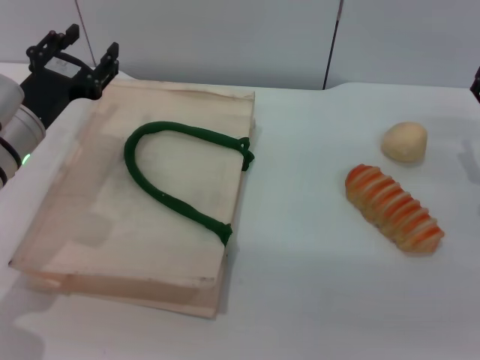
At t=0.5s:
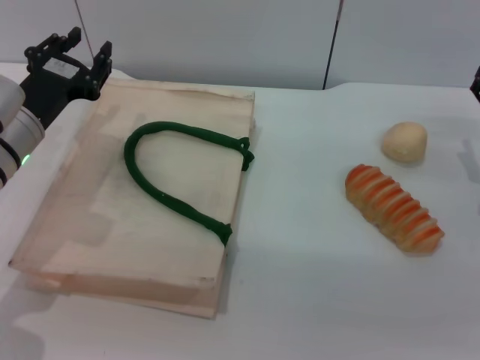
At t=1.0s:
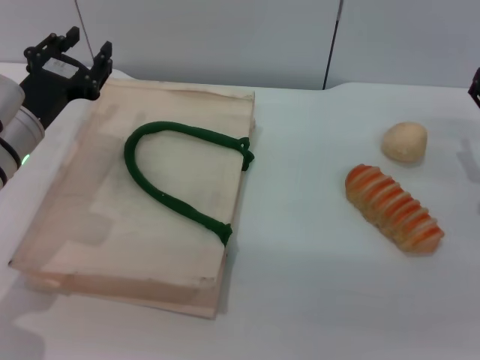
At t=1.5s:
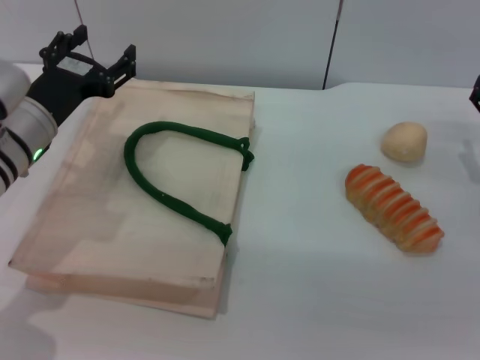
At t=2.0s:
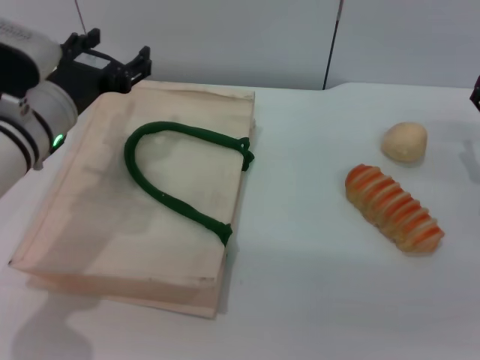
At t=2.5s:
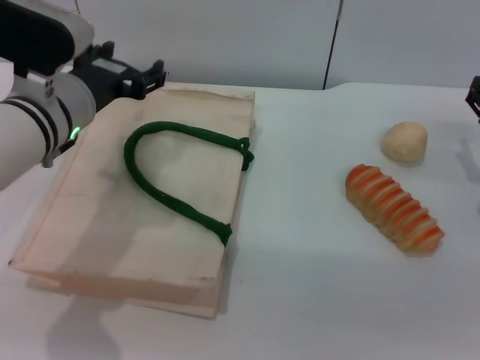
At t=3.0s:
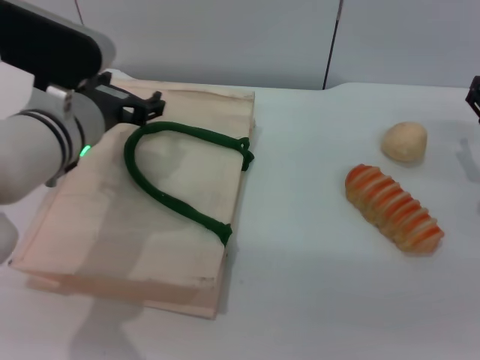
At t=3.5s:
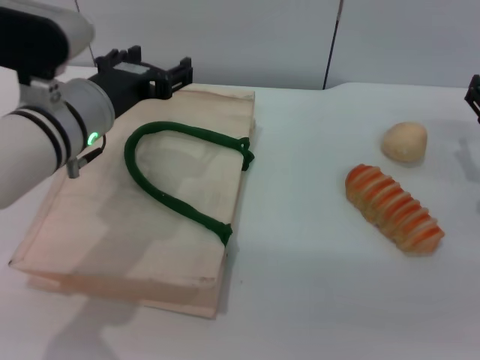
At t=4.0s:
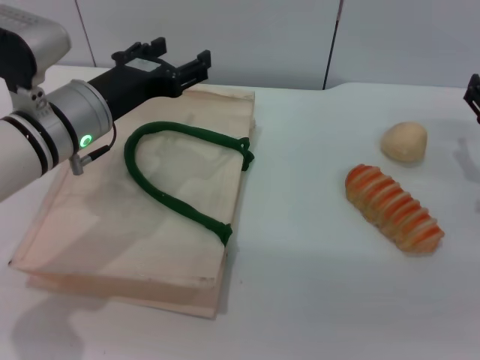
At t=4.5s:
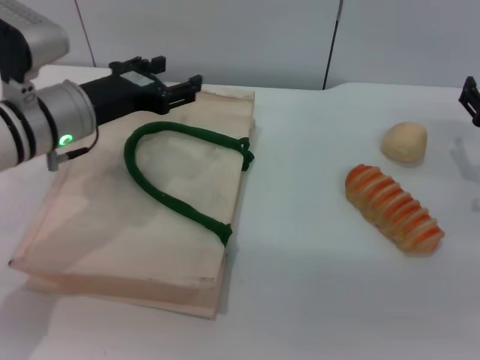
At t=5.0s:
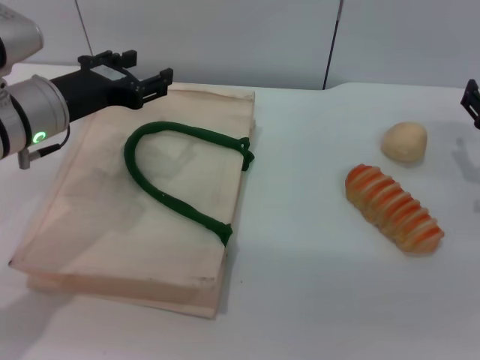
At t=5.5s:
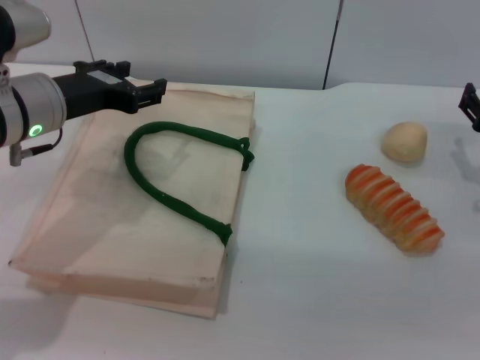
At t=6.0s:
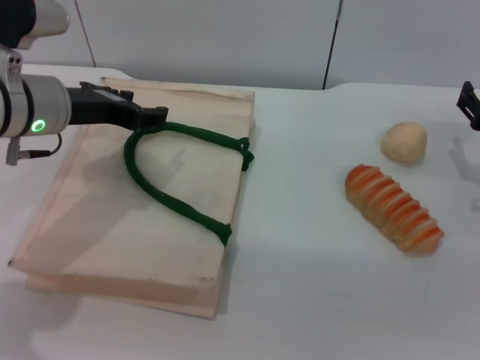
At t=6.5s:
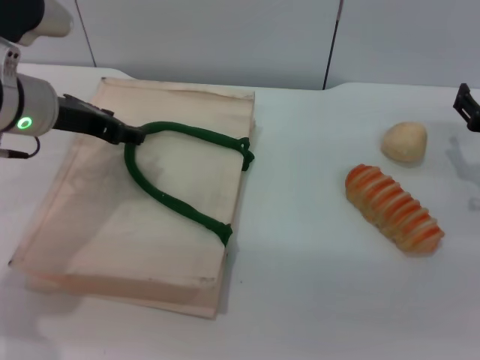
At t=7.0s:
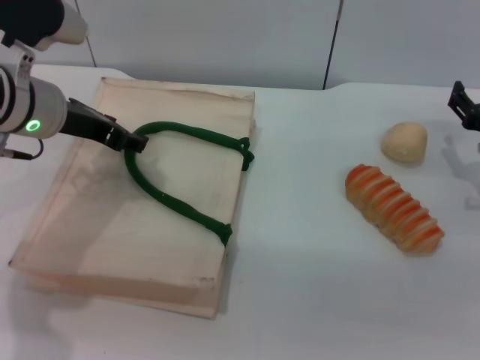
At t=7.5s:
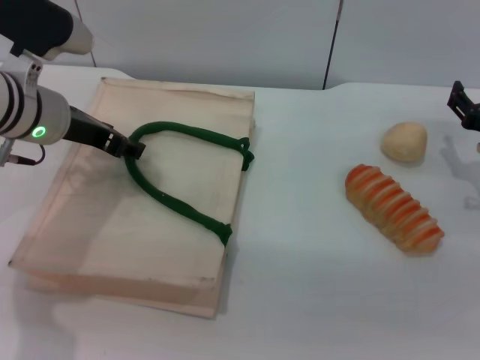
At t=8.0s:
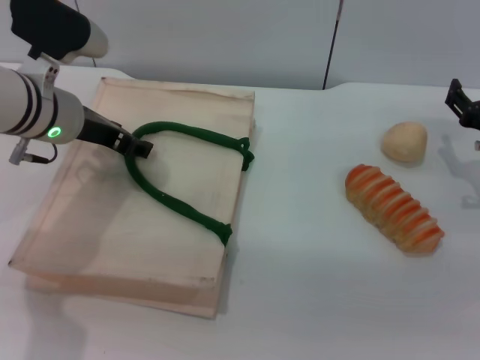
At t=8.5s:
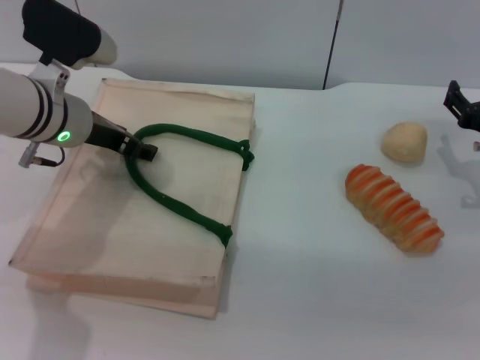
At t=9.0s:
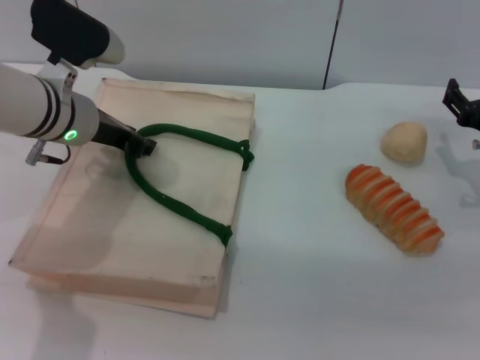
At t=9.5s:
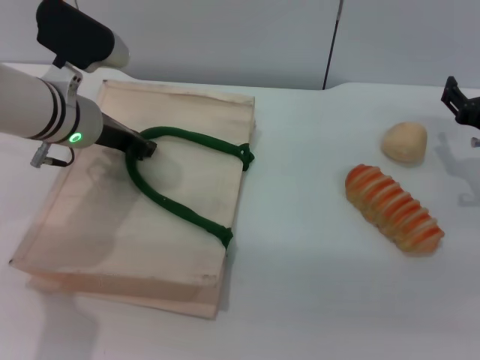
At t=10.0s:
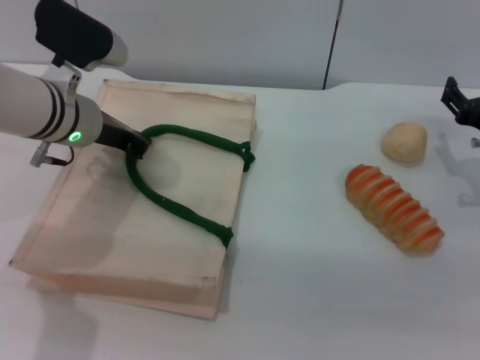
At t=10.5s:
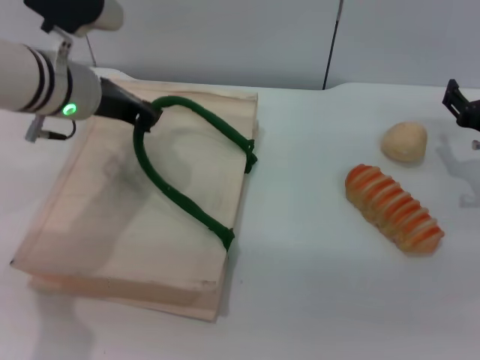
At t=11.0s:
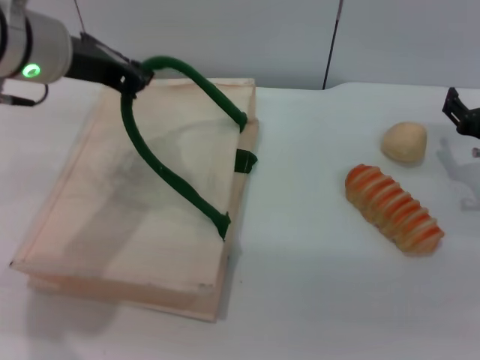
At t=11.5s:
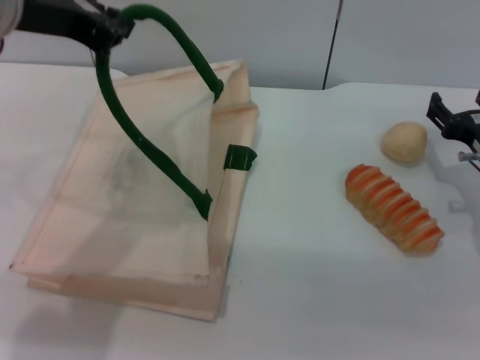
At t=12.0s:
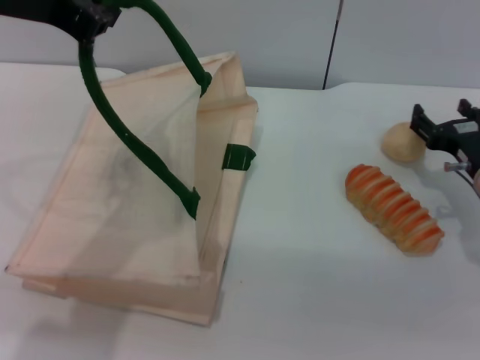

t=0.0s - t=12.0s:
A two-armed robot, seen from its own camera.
Task of the whole recording: pick up the bread and egg yolk pastry from the table and place it in the white handbag.
Step, t=0.0s - t=11.0s: Lift the woven bag with the left gripper to open it.
t=0.0s - t=2.0s: The left gripper changes place by approximately 5 cm.
t=4.0s - t=6.0s: The left gripper shifts by approximately 5 cm.
t=6.0s - t=8.0s: The grippers move only a little.
t=8.0s - t=10.0s: The left gripper closes up.
t=10.0s - t=12.0s: The left gripper heads upward and backward, covering roughly 20 cm.

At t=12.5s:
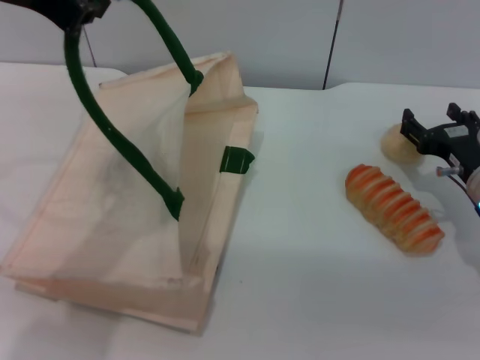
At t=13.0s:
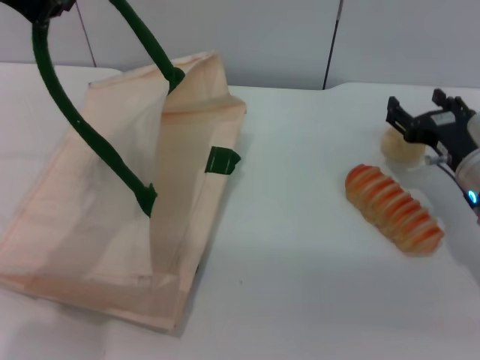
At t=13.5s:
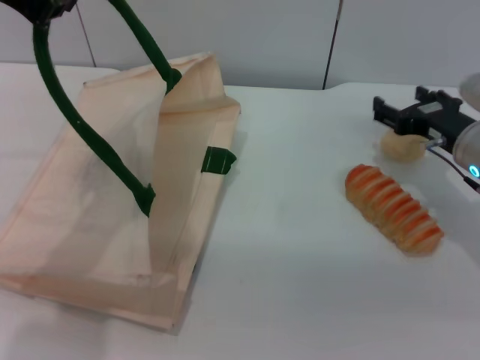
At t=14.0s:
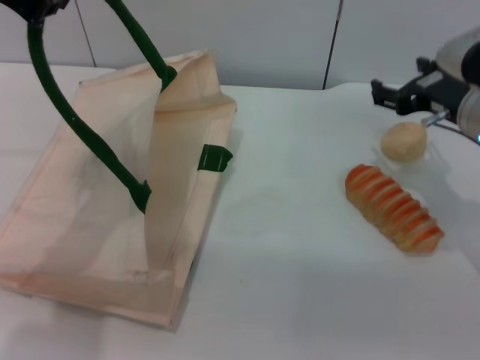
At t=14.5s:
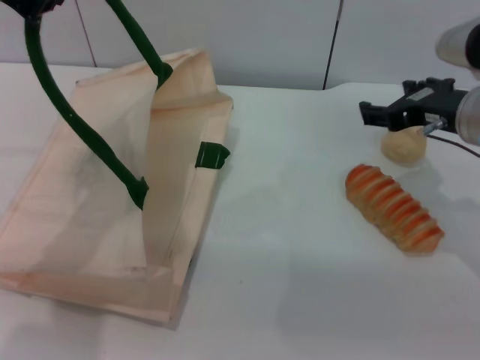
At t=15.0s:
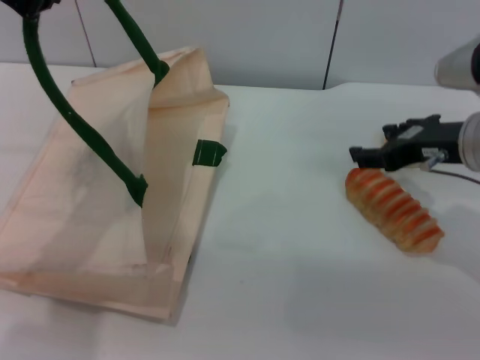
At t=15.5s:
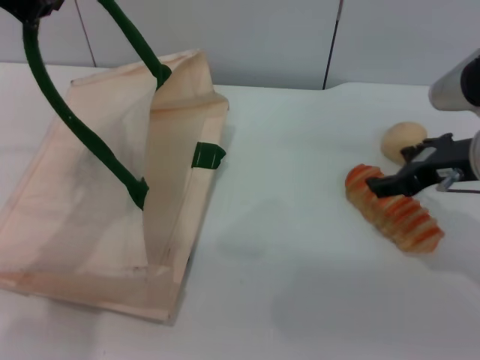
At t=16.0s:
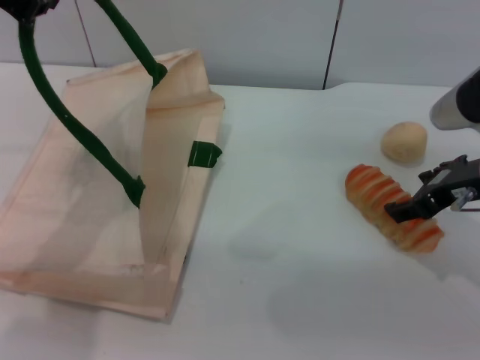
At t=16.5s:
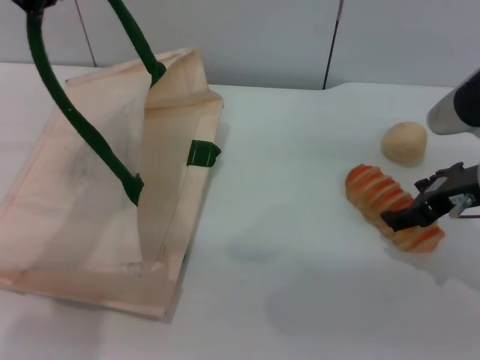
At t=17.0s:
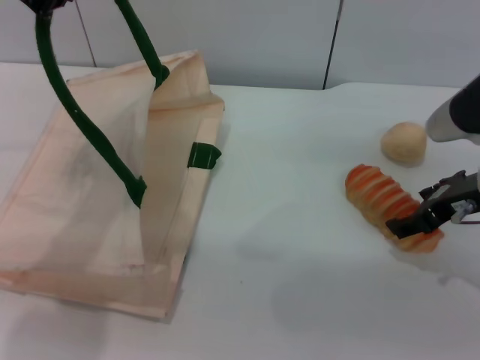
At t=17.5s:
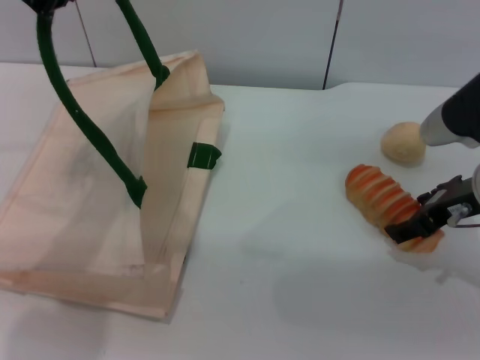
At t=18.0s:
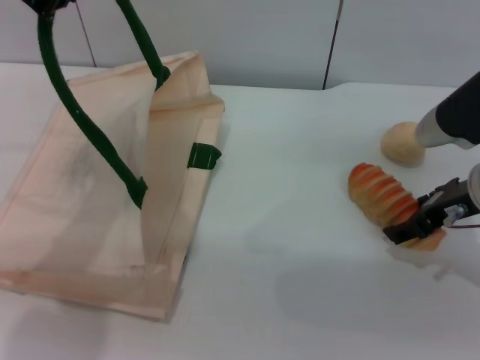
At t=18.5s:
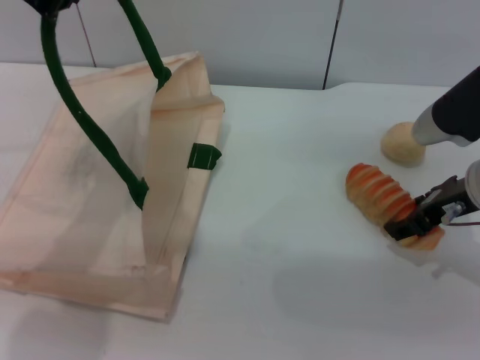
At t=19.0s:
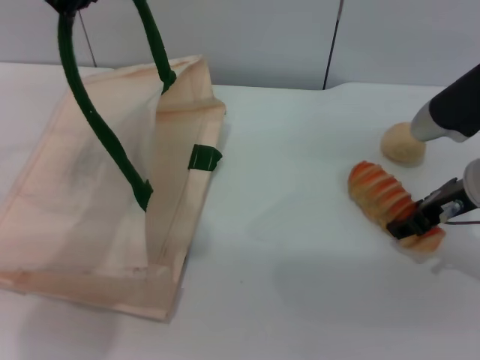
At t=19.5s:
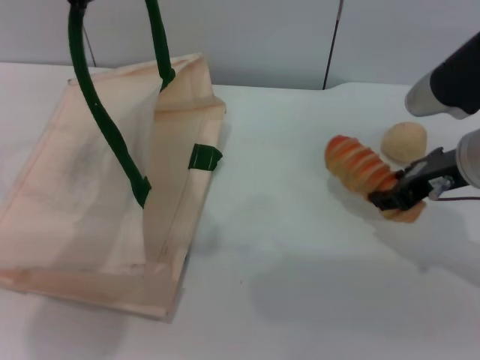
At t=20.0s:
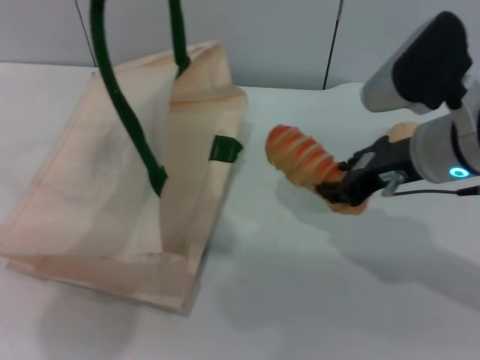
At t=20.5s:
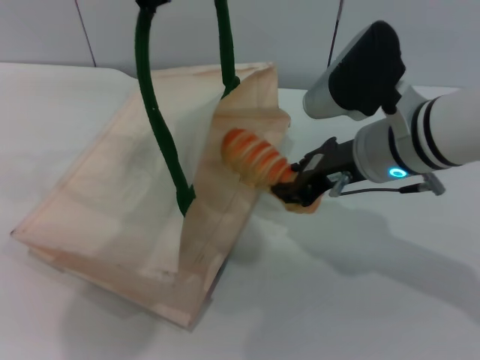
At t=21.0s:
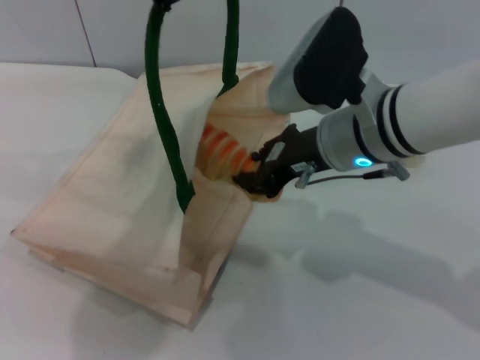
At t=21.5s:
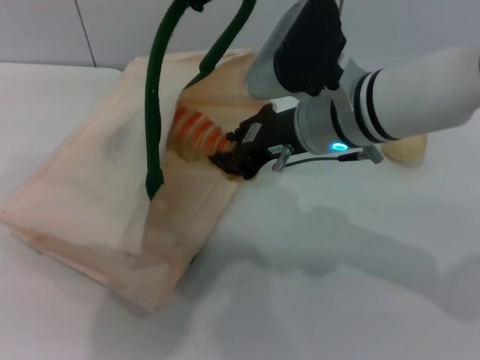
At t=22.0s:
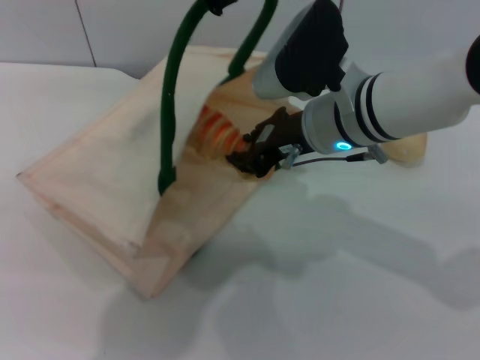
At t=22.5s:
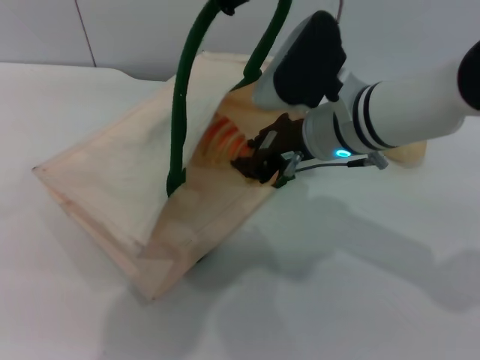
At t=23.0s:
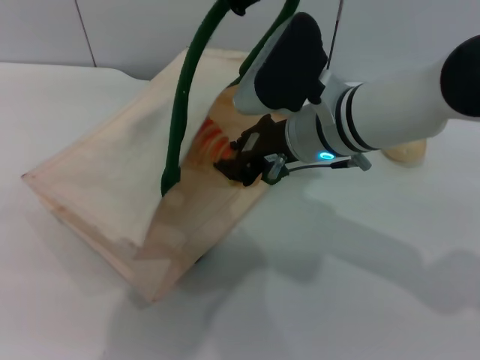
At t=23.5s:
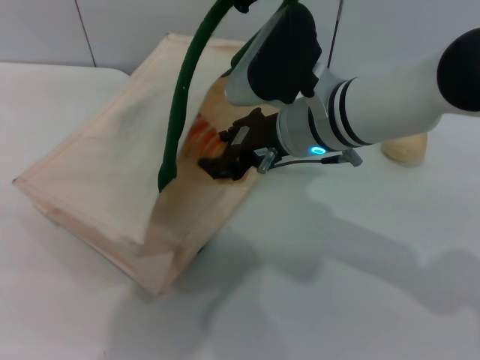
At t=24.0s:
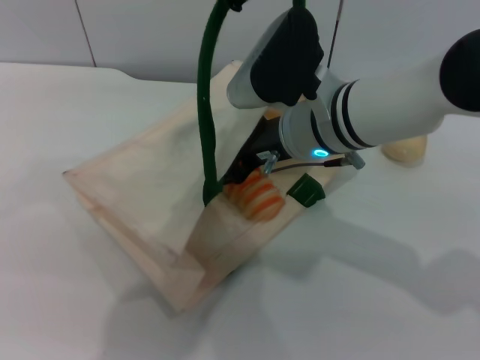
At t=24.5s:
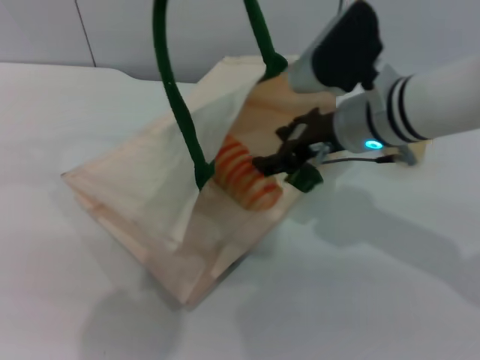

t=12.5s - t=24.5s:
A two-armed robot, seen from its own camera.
Task of the whole recording: pick up the bread and egg yolk pastry from the table and place it in the white handbag.
Step, t=12.5s - t=19.5s: Pick up the bread with the right gripper.
t=12.5s - t=14.5s: The right gripper moves upward, some 10 cm.
t=16.5s - t=18.5s: The grippers make only small movements.
t=18.5s - t=20.5s: The left gripper is displaced to the right by approximately 5 cm. The right gripper shifts about 10 cm to the left, and closes its fingers.
t=20.5s - t=22.5s: The left gripper heads to the right, covering about 5 cm. Meanwhile the right gripper ends up about 5 cm from where it was.
t=22.5s - t=24.5s: The right gripper opens up.

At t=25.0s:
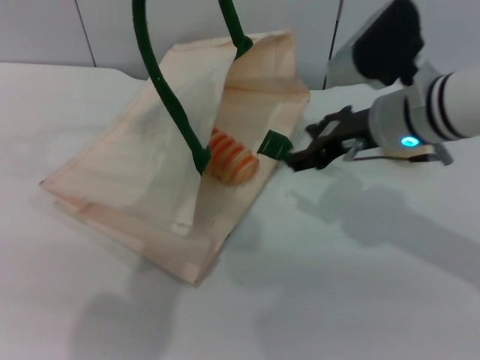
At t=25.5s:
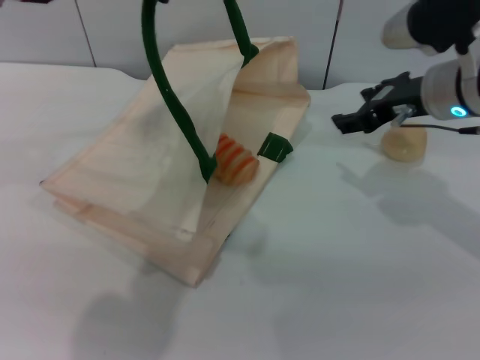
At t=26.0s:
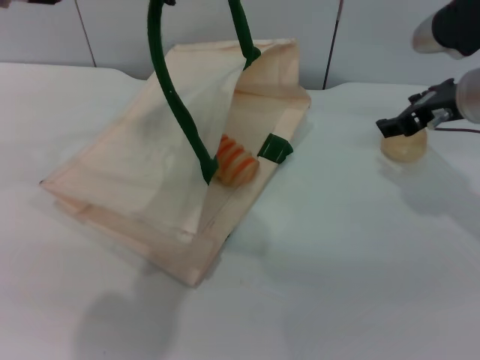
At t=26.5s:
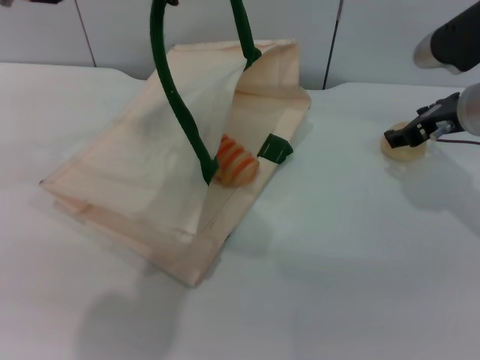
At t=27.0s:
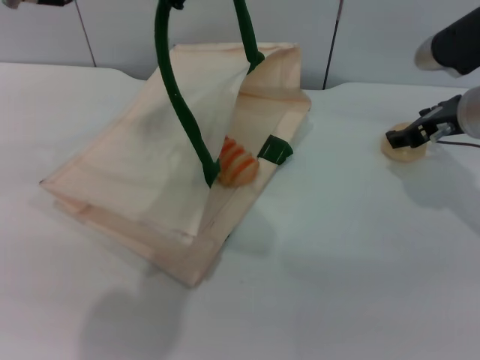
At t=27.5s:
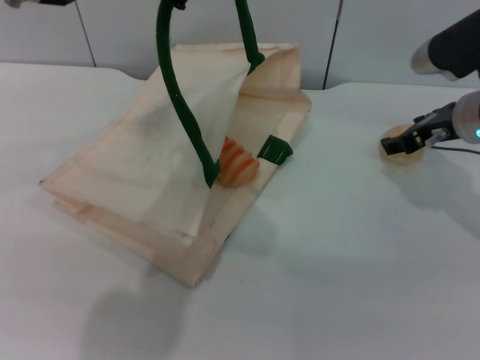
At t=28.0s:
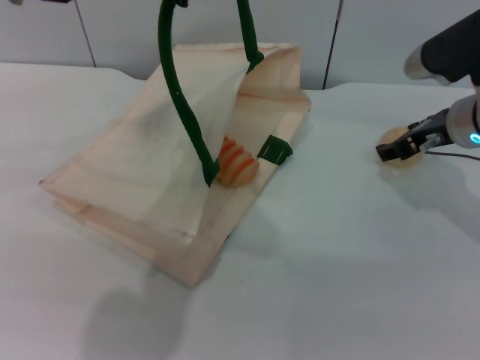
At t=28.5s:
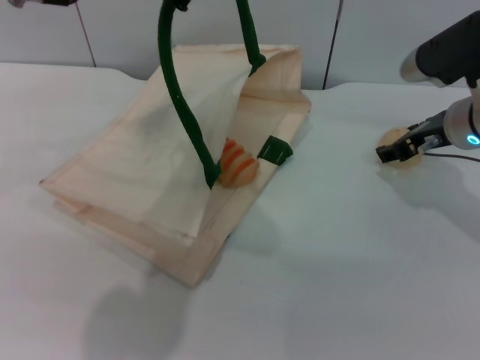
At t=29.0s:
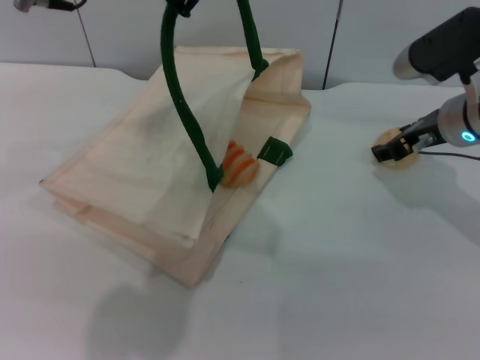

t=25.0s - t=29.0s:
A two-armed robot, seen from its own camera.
Task of the whole recording: pick up the bread and egg yolk pastry from the table and place it in the white handbag.
t=25.0s - t=27.0s: The right gripper heads to the right, covering some 10 cm.
t=27.0s - t=29.0s: The grippers make only small movements.
